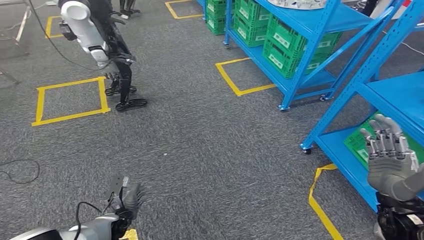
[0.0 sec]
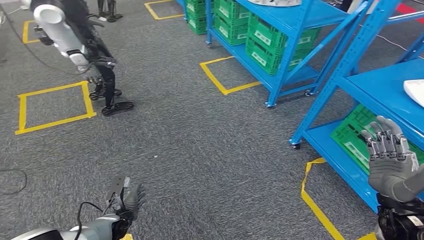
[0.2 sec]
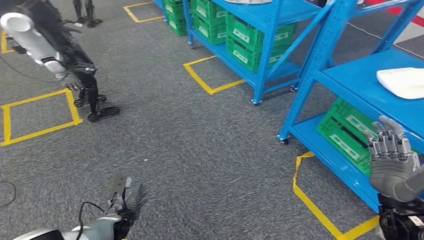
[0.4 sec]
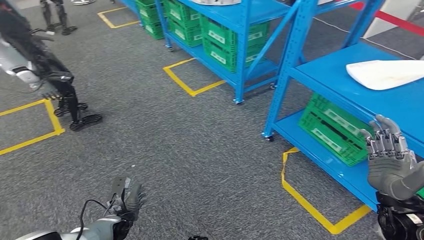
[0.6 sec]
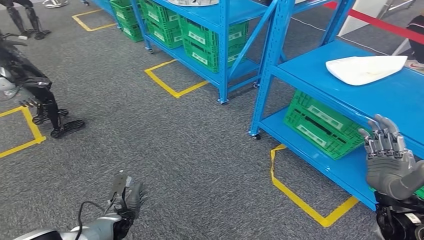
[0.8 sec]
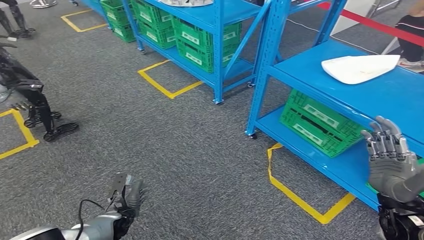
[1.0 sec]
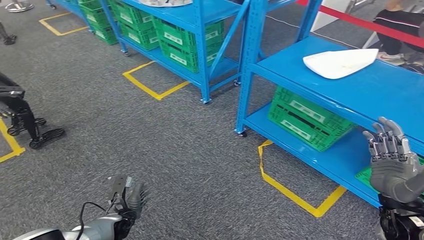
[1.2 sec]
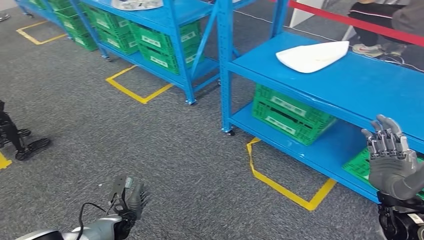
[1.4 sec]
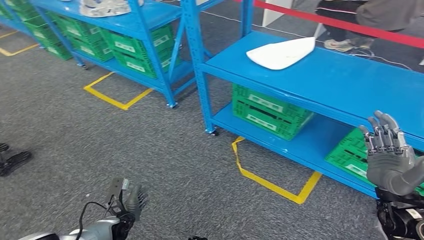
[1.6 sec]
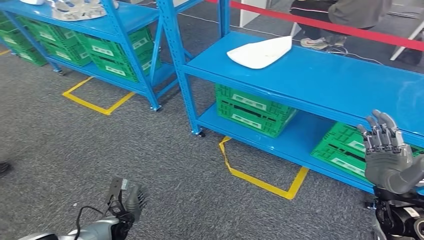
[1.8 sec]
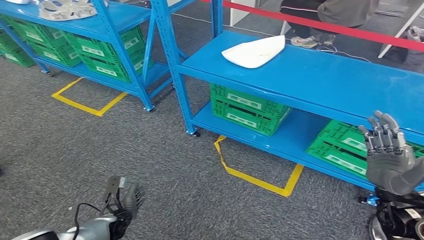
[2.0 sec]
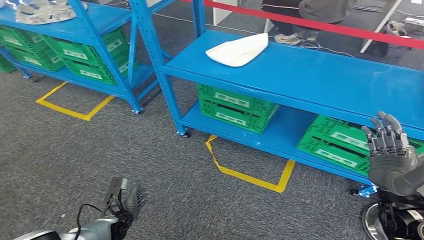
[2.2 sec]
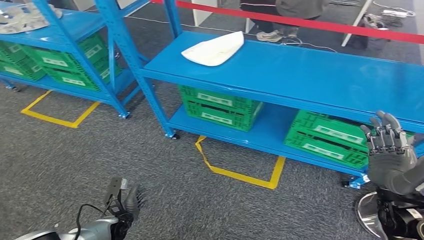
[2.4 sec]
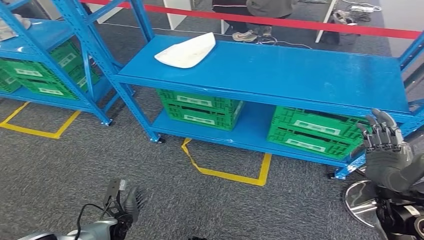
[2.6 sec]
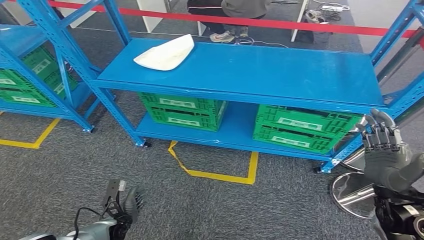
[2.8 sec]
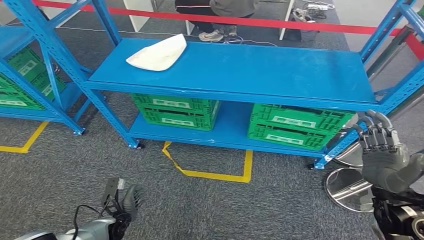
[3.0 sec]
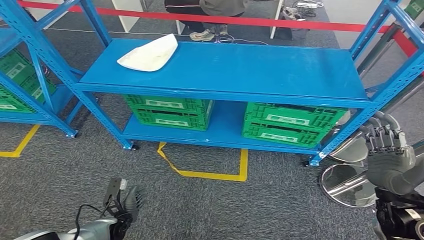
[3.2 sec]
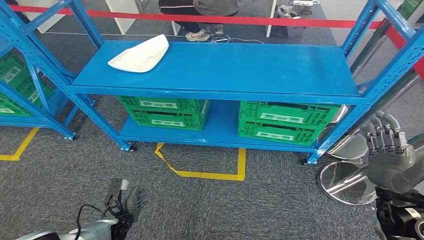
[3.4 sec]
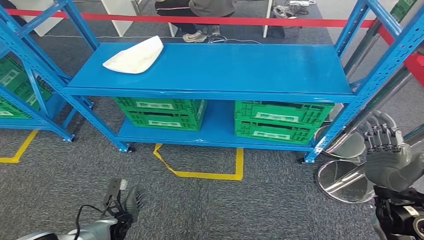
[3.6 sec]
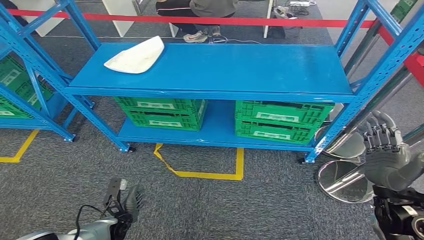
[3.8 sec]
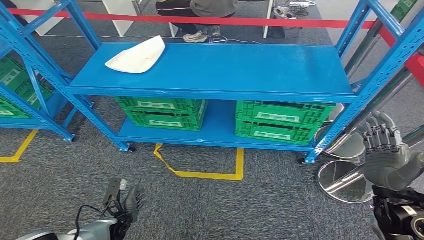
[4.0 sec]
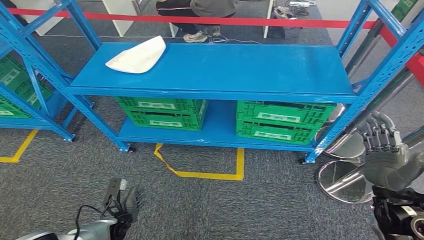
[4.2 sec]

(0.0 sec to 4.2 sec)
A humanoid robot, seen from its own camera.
Step, 0.0 sec - 4.2 sec: Move to the initial position of the workbench.
